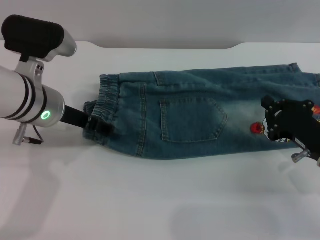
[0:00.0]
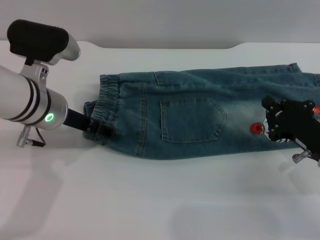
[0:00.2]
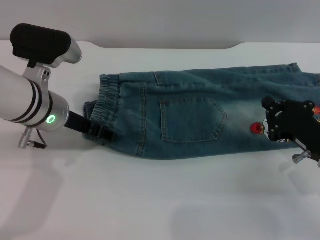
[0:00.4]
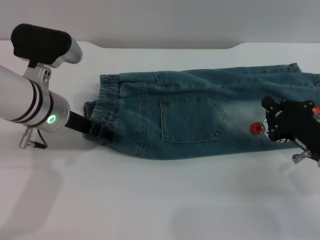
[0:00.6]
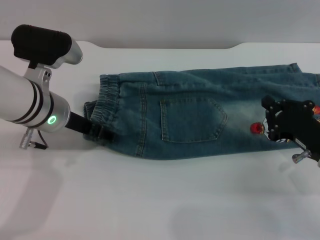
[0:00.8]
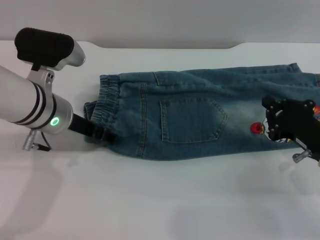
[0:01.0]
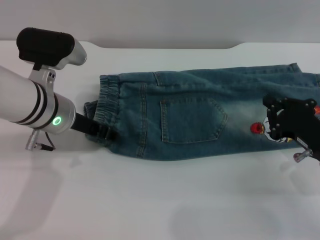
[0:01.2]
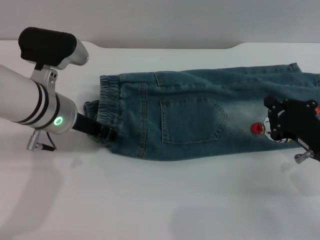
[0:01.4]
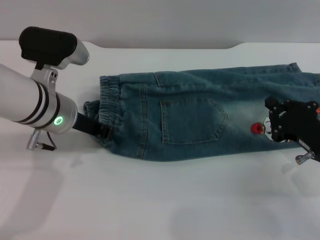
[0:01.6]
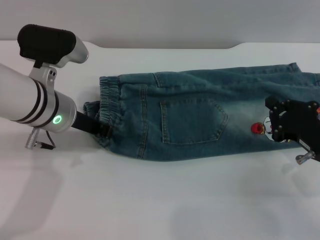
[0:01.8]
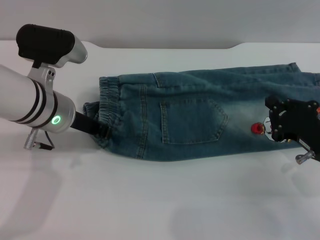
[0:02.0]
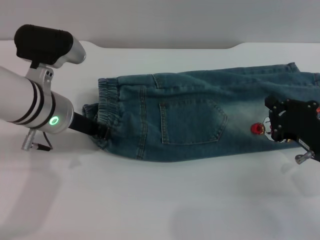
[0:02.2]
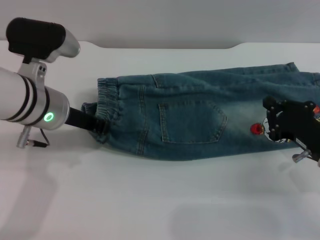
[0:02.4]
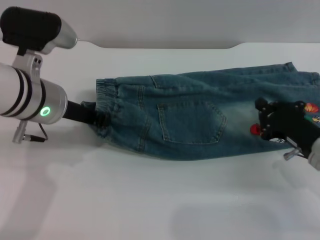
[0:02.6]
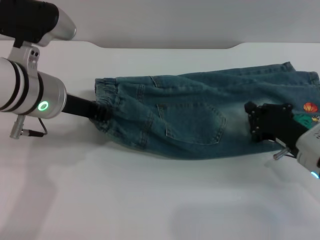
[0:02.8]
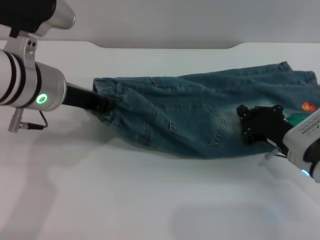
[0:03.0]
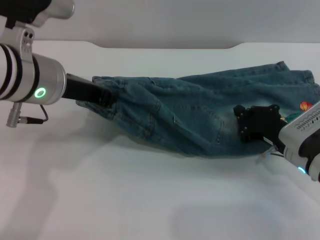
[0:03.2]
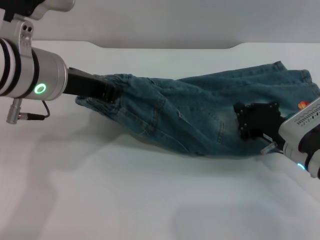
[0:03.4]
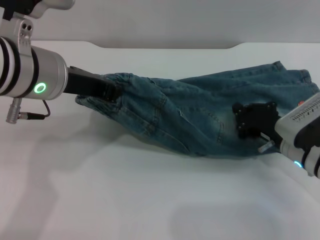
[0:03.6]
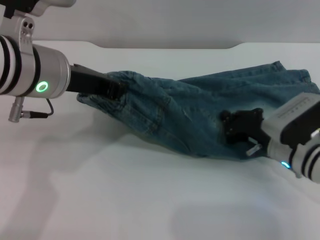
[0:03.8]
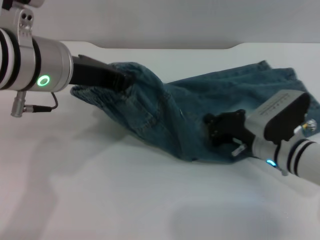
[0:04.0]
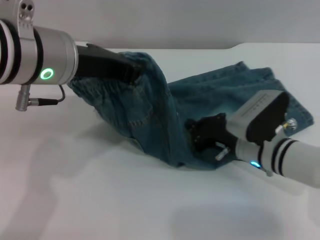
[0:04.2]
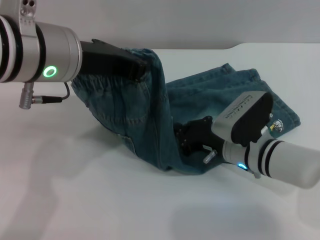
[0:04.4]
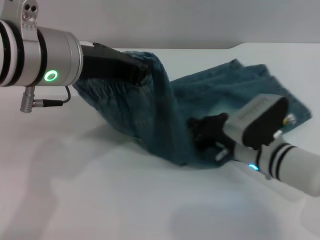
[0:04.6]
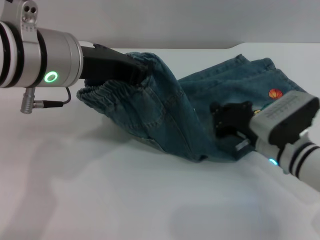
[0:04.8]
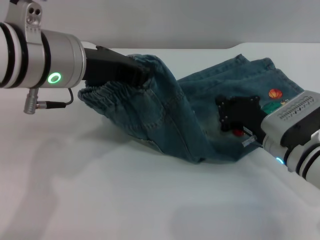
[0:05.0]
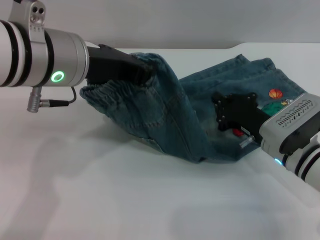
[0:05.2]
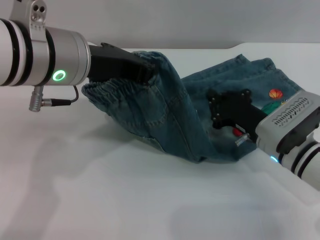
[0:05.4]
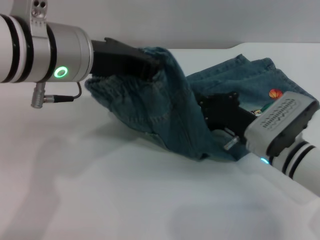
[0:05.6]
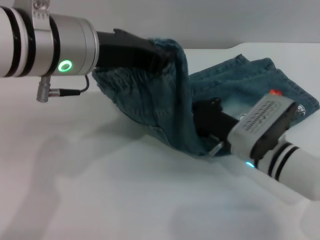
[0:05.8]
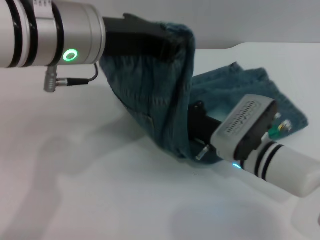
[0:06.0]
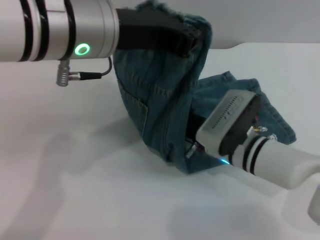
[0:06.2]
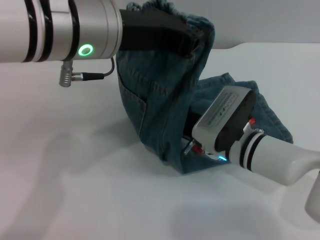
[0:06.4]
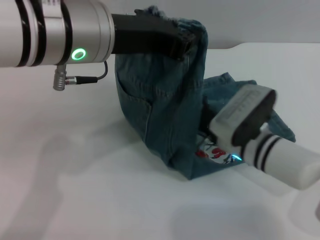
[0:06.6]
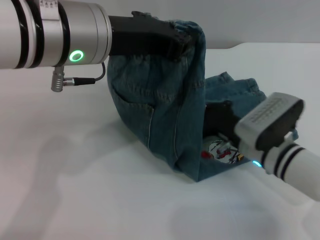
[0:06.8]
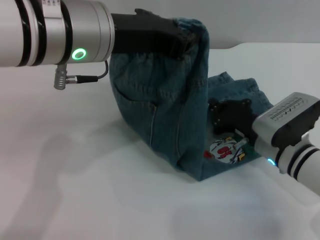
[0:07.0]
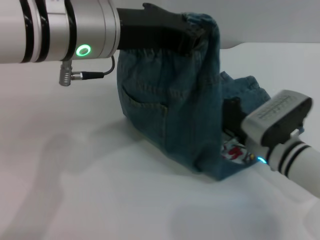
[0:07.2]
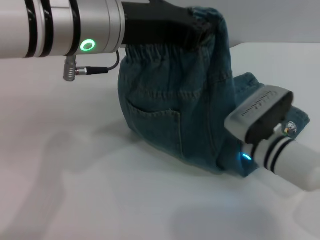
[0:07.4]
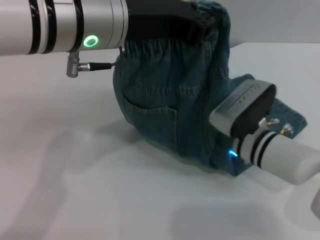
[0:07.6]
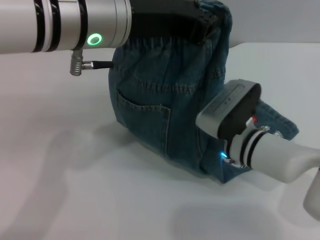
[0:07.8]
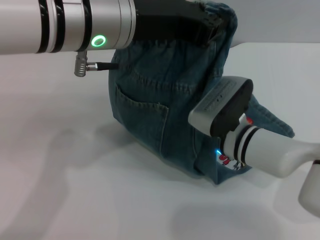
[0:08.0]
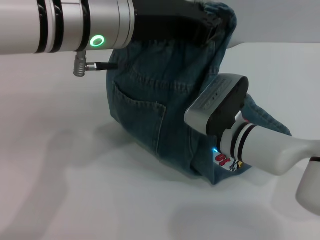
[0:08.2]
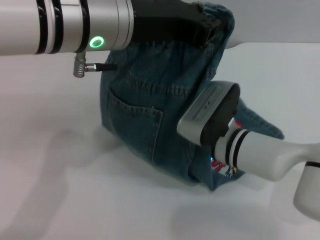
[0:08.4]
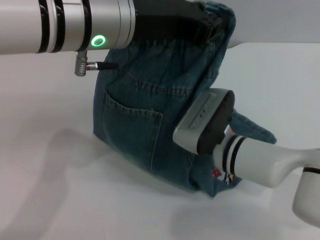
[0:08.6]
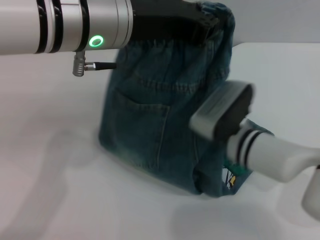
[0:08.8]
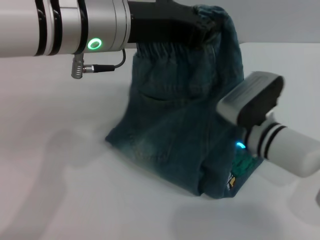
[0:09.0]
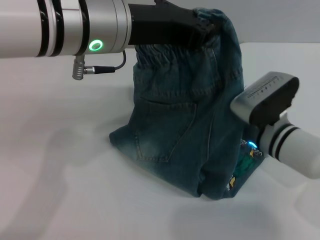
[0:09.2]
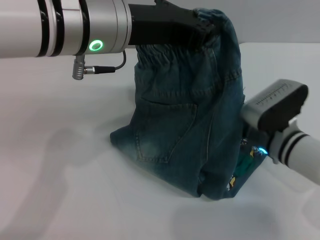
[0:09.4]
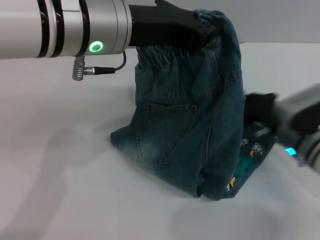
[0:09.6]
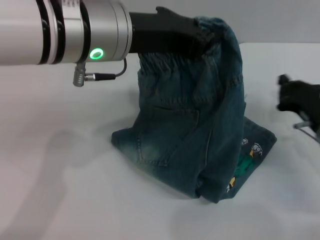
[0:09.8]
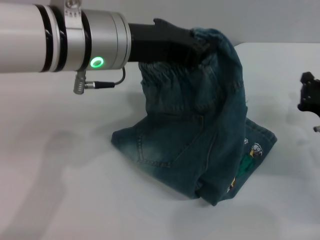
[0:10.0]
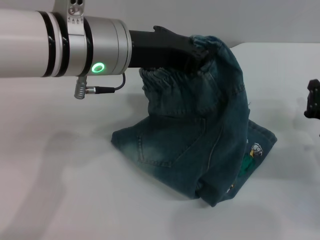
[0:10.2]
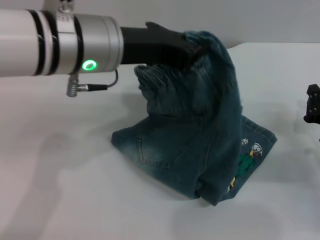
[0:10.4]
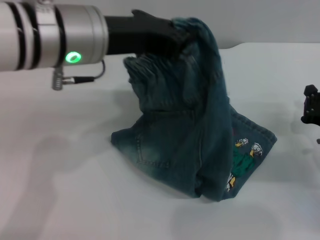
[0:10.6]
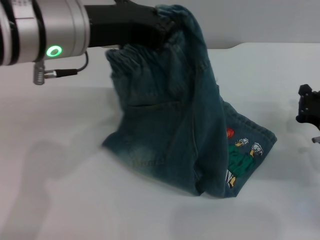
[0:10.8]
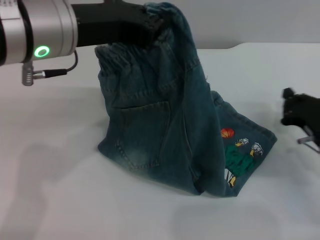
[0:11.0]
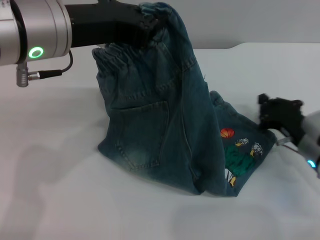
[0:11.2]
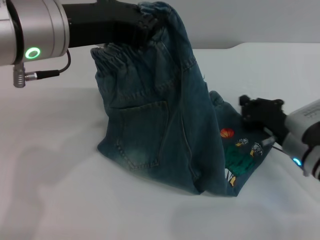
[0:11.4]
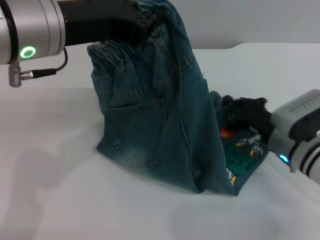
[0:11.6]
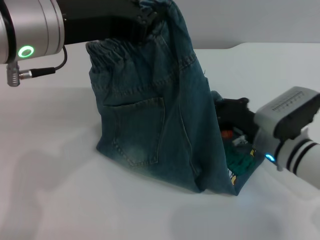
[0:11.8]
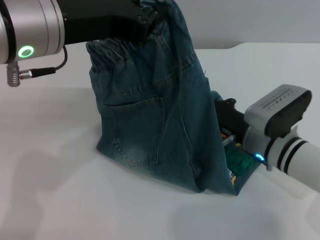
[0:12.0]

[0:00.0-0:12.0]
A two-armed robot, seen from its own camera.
0:00.0 to 0:01.6: The left gripper closes up.
0:01.6 to 0:03.0: The right gripper changes place by roughly 5 cm, while the left gripper heads upward, covering about 5 cm.
0:03.0 to 0:04.4: The left gripper goes some 5 cm upward; the right gripper goes about 10 cm to the left.
0:06.0 to 0:07.6: The right gripper moves some 5 cm to the right and comes back.
0:09.0 to 0:10.4: The right gripper is displaced to the right by approximately 15 cm.
0:10.4 to 0:12.0: The left gripper ends up about 5 cm from where it was; the right gripper is displaced to the left by some 15 cm.

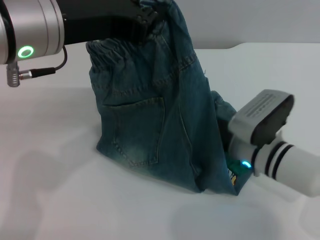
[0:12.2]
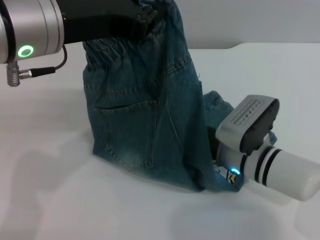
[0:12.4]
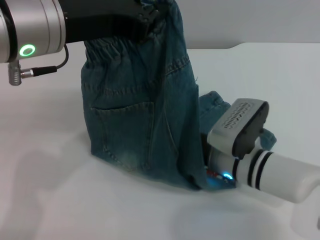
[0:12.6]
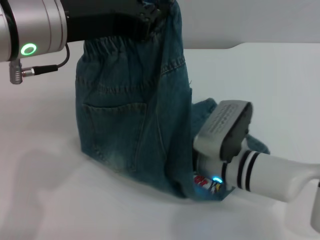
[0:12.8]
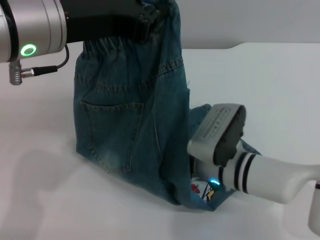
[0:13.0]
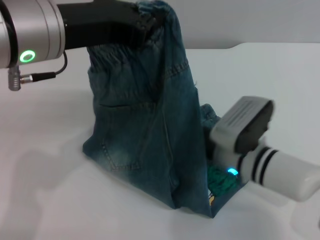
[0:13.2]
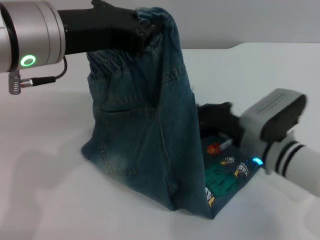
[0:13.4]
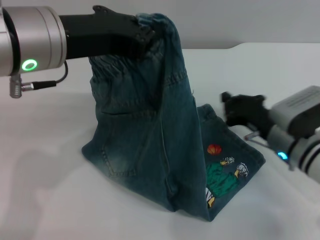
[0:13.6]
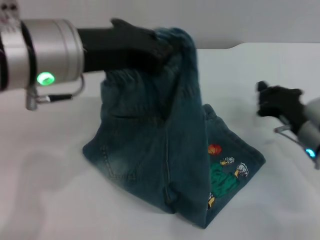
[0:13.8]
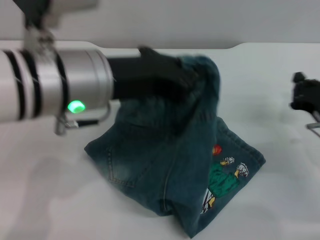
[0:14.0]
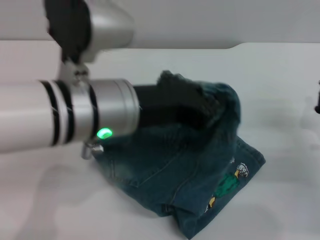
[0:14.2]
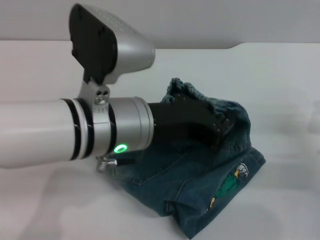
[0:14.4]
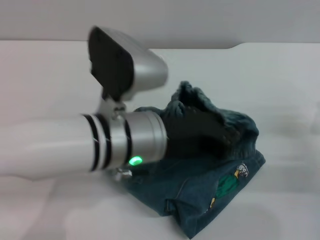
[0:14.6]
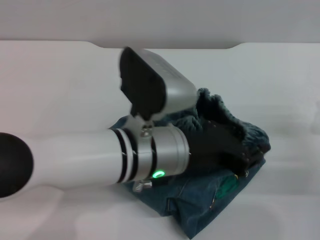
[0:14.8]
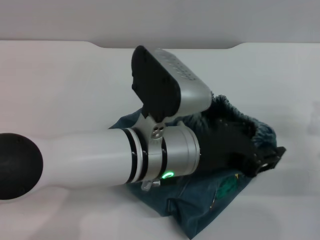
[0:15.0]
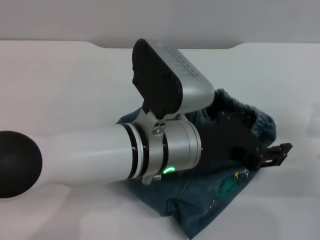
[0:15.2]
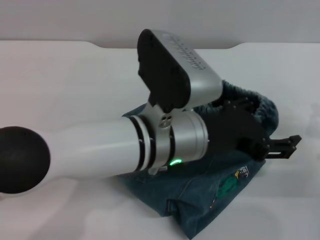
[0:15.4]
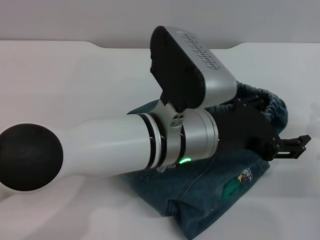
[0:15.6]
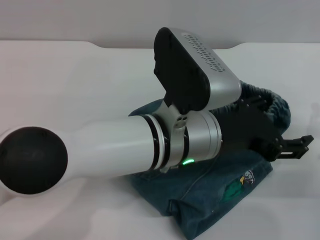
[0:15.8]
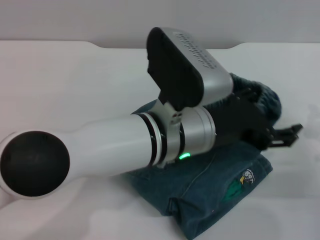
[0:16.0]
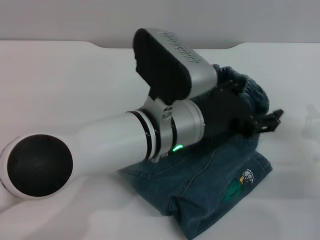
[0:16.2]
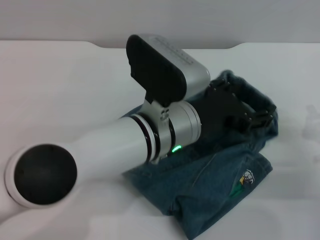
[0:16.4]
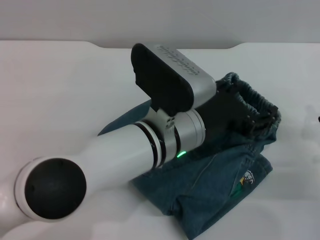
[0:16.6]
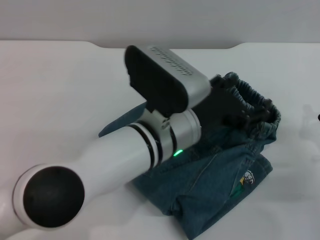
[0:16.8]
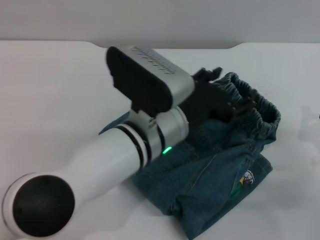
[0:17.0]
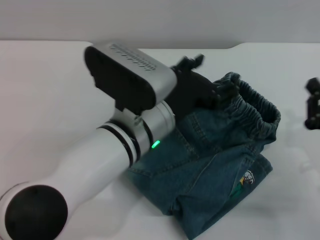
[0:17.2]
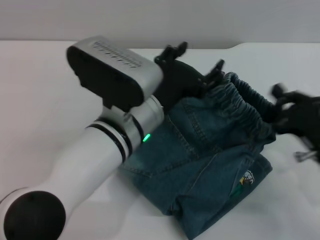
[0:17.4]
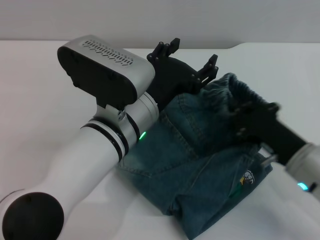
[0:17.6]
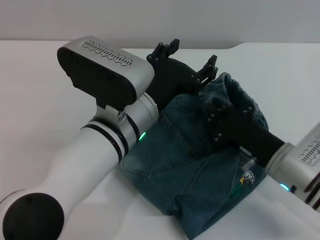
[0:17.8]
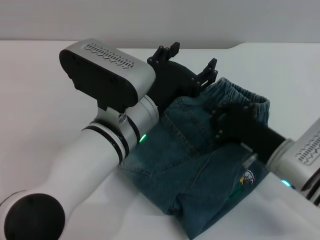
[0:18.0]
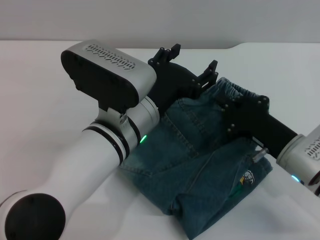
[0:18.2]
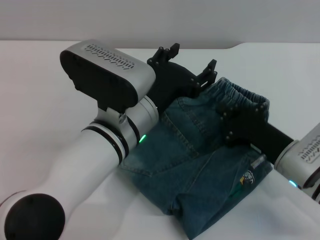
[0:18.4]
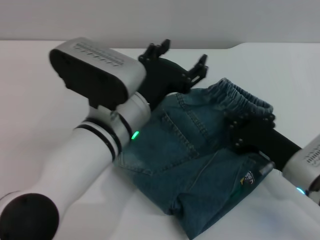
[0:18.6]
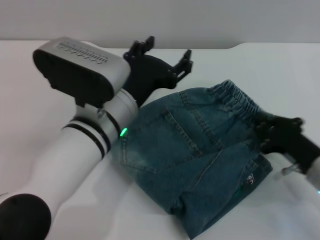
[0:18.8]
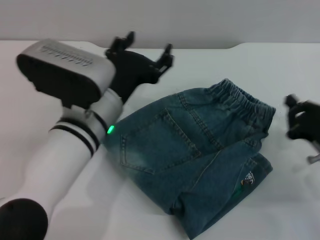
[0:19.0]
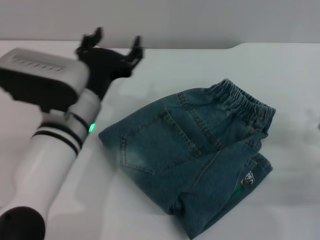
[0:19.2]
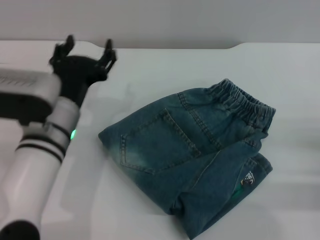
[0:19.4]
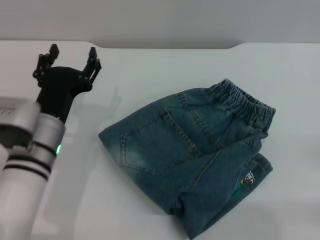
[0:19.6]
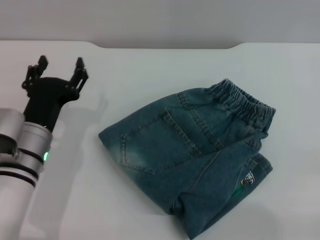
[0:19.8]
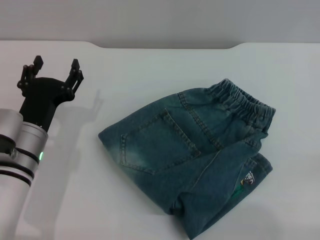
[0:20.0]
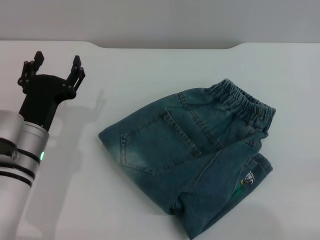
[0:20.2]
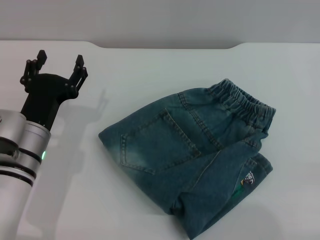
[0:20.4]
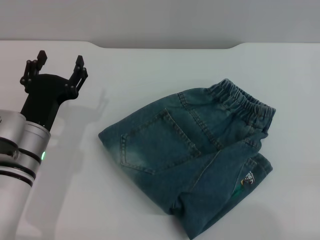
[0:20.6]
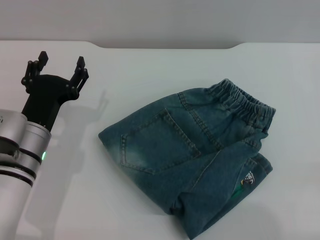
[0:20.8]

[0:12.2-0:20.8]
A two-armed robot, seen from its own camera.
Step, 0:12.2 to 0:16.4: Fold the pants from left to right with the left gripper.
0:12.2 to 0:13.6: The right gripper heads to the right, covering roughly 5 cm.
0:13.6 to 0:15.0: The left gripper shifts roughly 15 cm to the right and downward. The right gripper is displaced to the right and backward by about 15 cm.
0:15.0 to 0:16.6: The left gripper opens.
0:16.6 to 0:18.0: The right gripper heads to the left, covering some 10 cm.
0:18.0 to 0:19.4: The right gripper travels to the right by roughly 15 cm. The left gripper heads to the left, covering some 10 cm.
0:19.4 to 0:20.8: The left gripper goes approximately 5 cm to the left. The right gripper heads backward, covering approximately 10 cm.

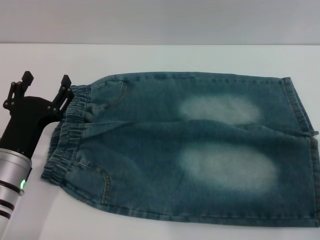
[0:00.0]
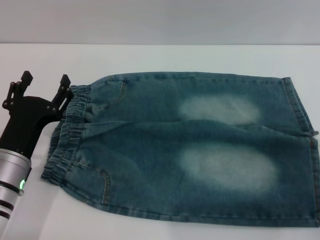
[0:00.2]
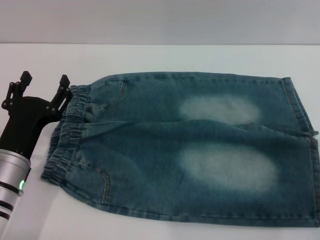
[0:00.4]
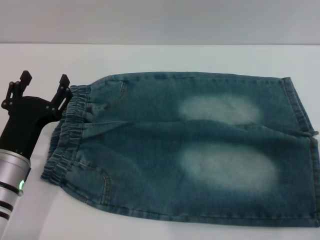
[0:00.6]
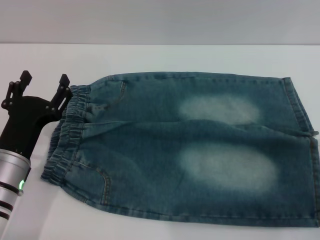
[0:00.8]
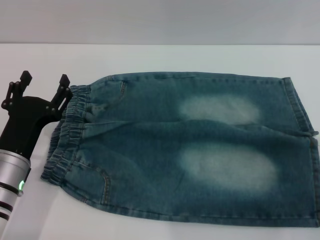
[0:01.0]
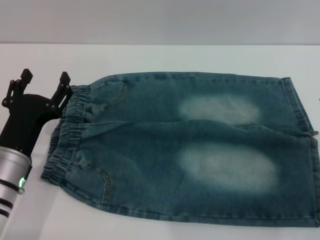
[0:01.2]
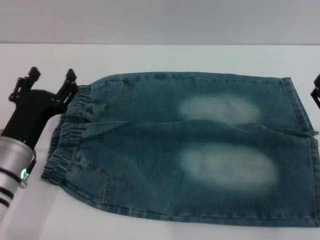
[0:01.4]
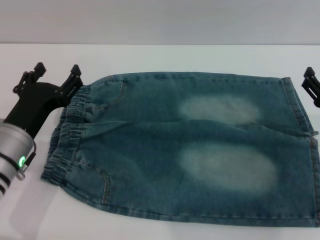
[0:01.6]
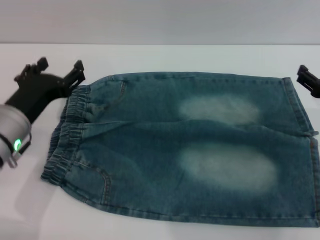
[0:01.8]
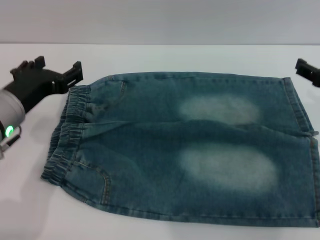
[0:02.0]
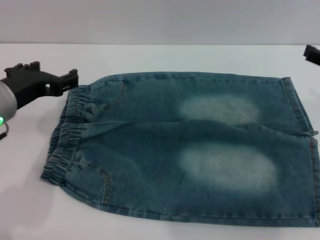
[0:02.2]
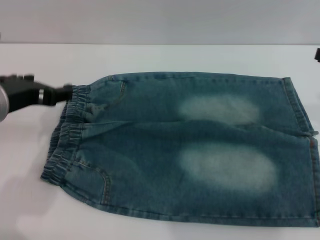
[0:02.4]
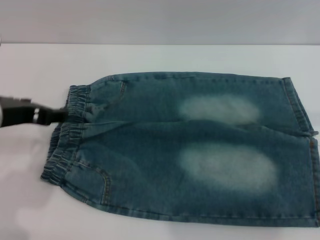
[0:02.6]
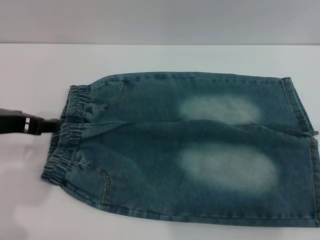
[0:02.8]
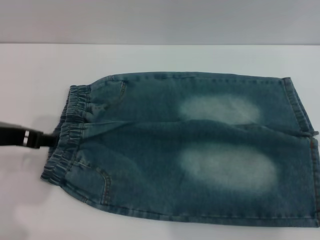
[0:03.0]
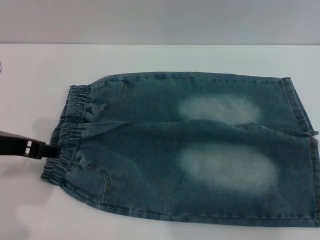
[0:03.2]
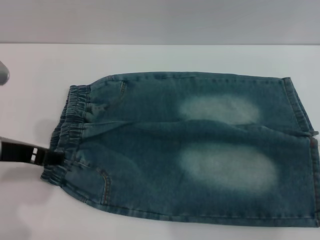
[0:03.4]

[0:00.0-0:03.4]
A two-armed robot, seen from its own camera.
0:00.0 to 0:01.6: The right gripper shifts by approximately 5 cm.
0:01.6 to 0:03.4: The left gripper moves upward, approximately 10 cm.
